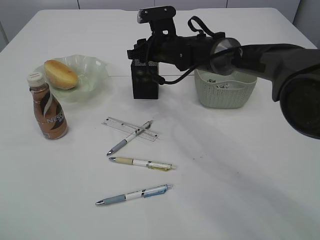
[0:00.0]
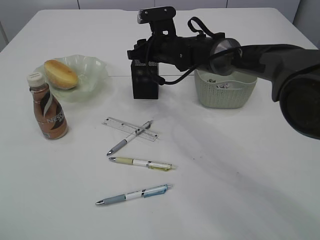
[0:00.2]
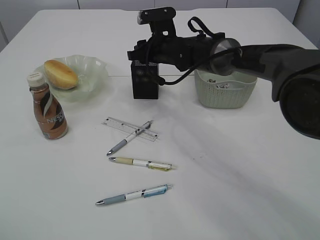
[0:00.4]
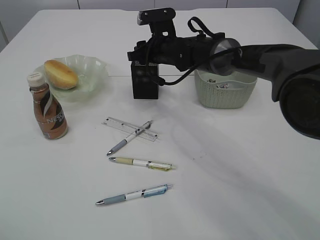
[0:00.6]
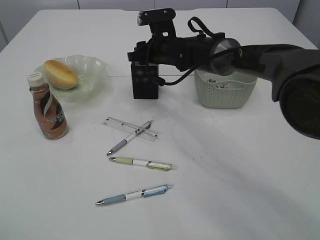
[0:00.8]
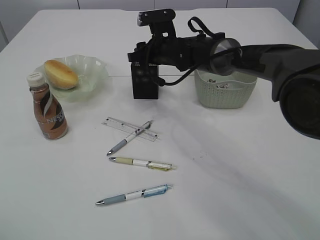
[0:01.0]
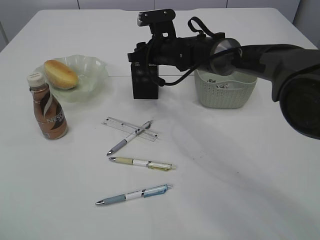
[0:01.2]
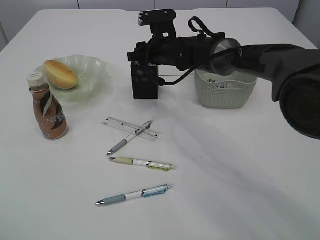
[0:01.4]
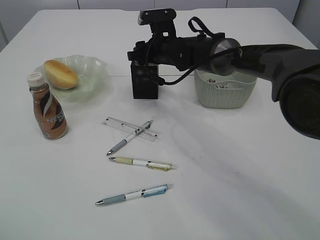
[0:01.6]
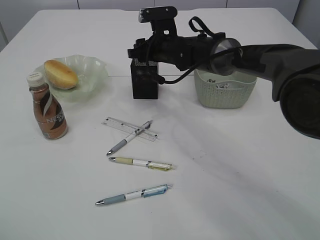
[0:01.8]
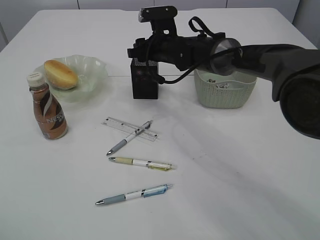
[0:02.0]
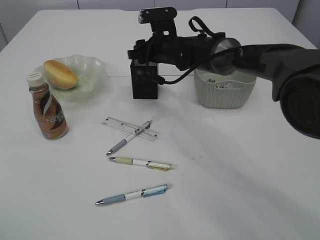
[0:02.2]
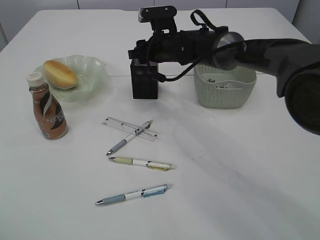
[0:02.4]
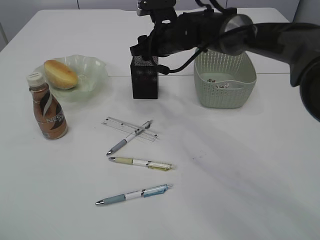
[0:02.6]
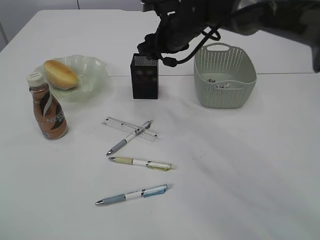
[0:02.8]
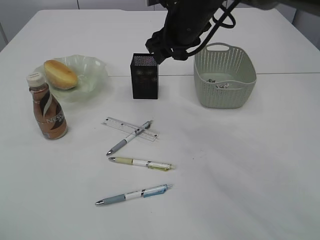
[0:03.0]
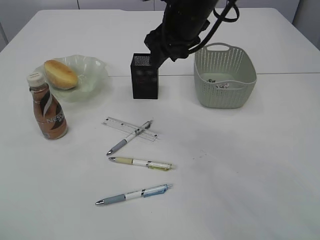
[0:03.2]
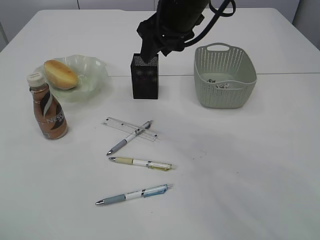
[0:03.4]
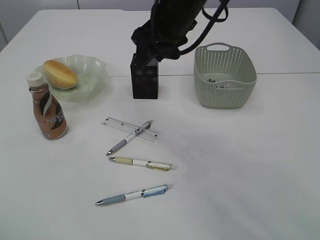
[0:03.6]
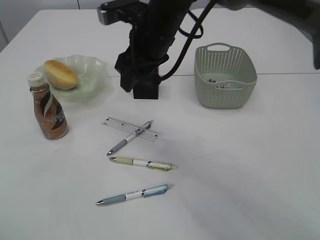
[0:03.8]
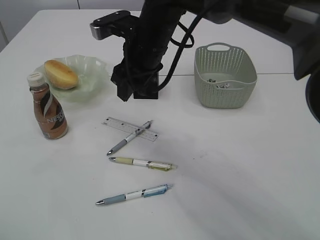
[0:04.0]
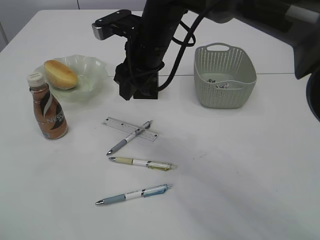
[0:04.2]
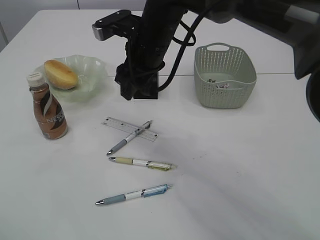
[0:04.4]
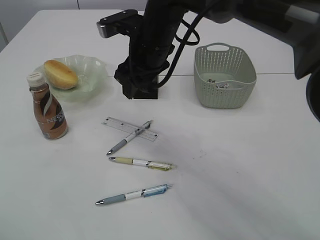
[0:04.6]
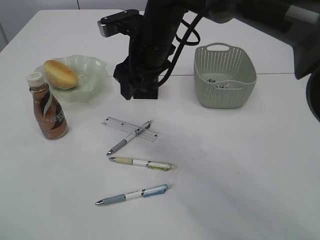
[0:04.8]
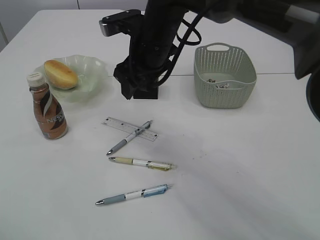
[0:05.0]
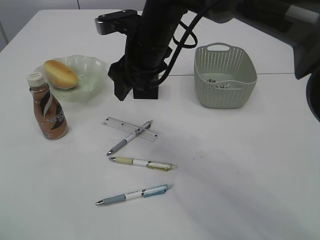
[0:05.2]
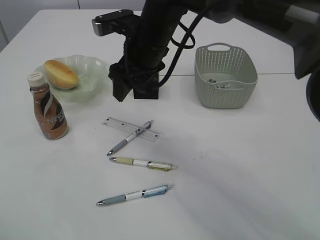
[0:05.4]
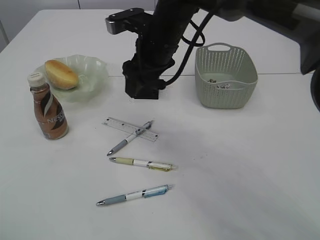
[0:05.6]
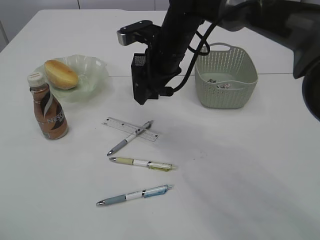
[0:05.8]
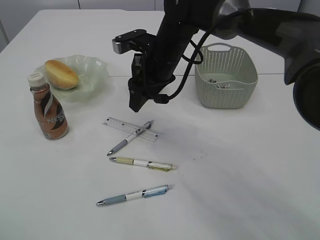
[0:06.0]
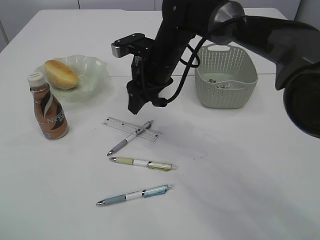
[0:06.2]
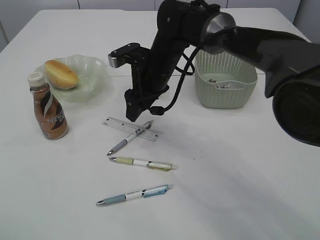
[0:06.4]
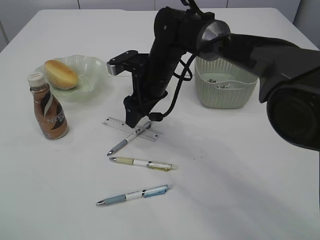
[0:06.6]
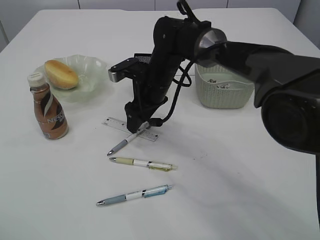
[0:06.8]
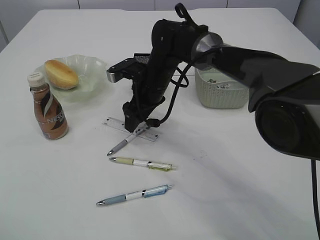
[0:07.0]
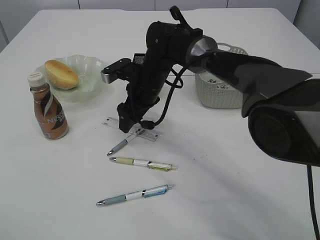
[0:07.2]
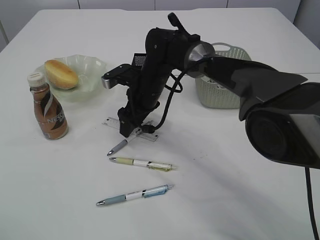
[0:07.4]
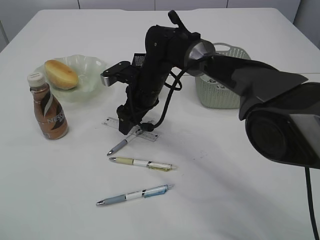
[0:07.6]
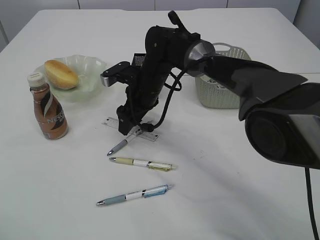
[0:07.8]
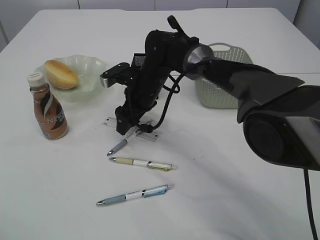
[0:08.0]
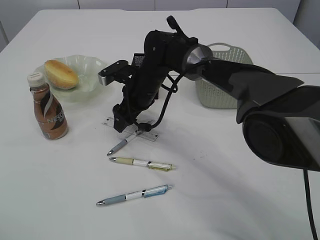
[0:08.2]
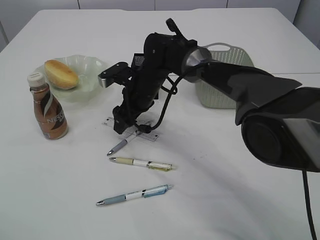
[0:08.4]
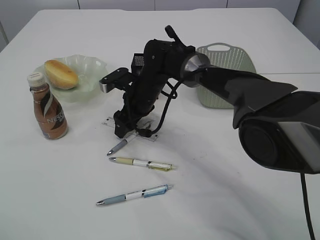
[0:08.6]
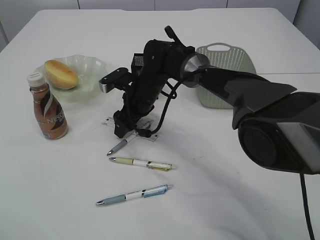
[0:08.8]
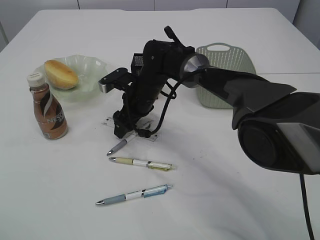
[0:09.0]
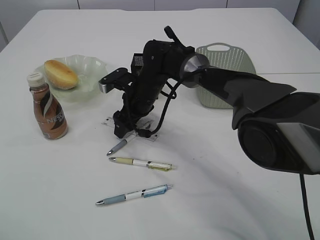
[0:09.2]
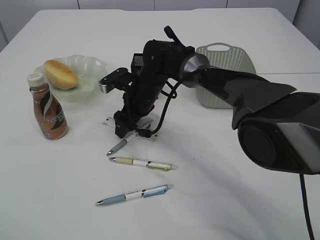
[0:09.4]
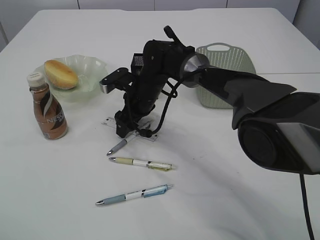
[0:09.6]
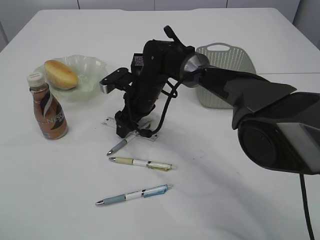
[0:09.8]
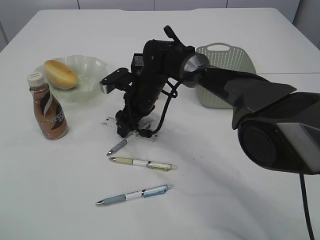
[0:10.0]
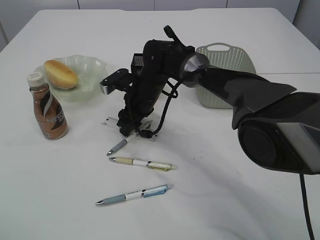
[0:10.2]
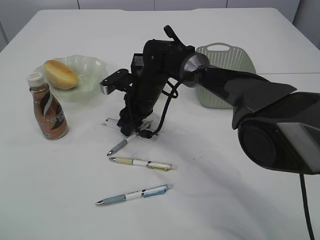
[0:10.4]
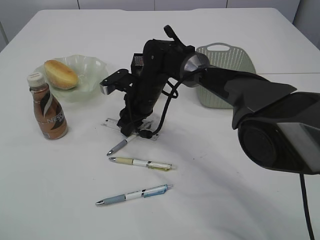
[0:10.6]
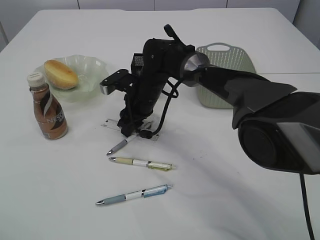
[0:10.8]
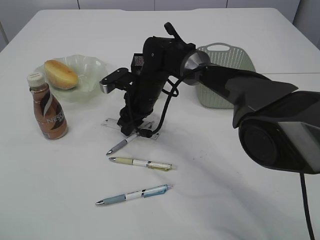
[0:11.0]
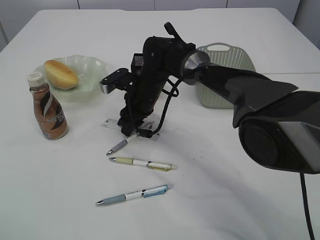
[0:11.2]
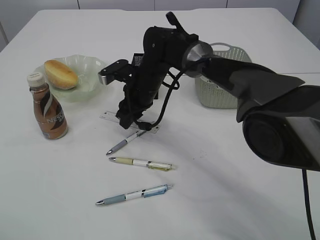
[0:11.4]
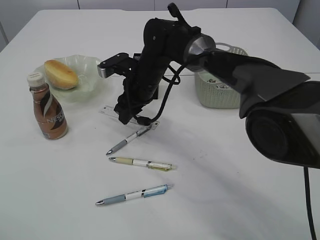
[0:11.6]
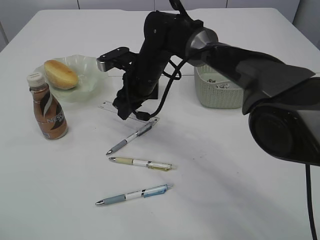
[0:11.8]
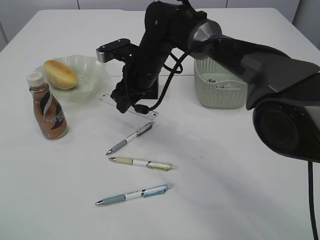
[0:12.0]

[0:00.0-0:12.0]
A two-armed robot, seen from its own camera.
Step, 0:02.0 to 0:11.8: pick up the ruler.
0:00.0 to 0:01.6: Both grippers stay about where they are.
0:01.6 to 0:03.0: The right gripper moves upward and backward, approximately 10 cm.
0:03.0 to 0:04.4: The right gripper travels to the left by roughly 5 cm.
0:04.4 to 0:06.0: The right gripper changes place by some 5 cm.
0:06.0 to 0:07.6: The right gripper heads downward, covering about 5 cm.
0:07.6 to 0:09.0: The grippers move only a little.
0:09.0 to 0:10.4: The right gripper closes its fingers.
0:10.4 to 0:12.0: The right gripper shifts about 5 cm upward.

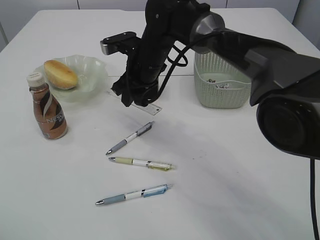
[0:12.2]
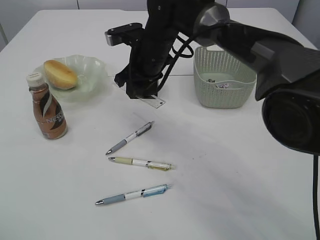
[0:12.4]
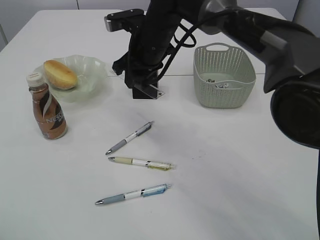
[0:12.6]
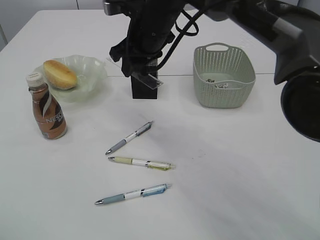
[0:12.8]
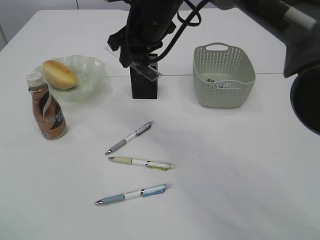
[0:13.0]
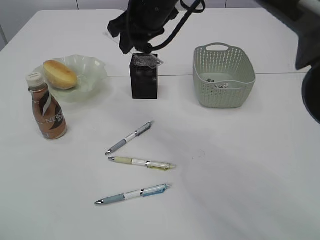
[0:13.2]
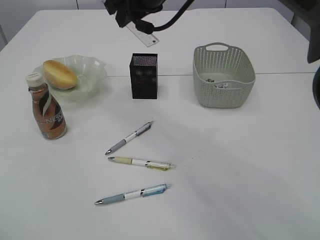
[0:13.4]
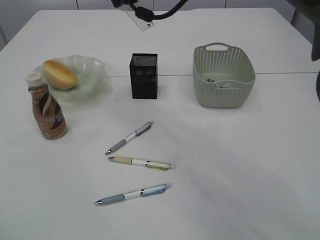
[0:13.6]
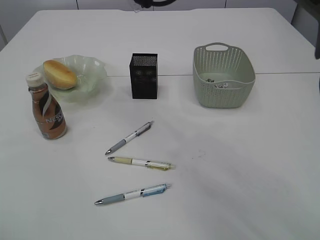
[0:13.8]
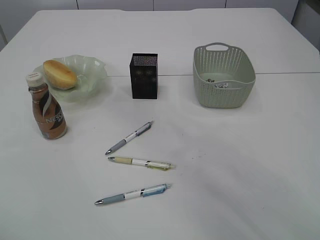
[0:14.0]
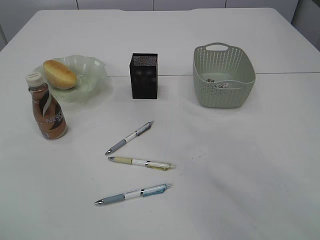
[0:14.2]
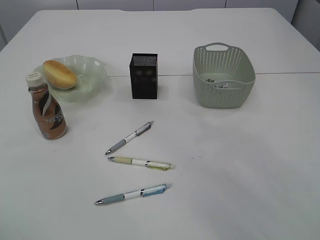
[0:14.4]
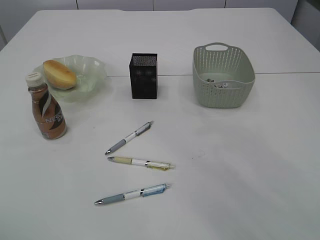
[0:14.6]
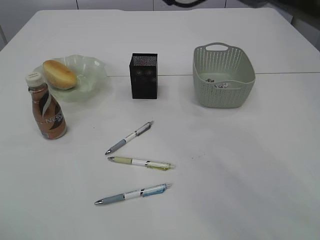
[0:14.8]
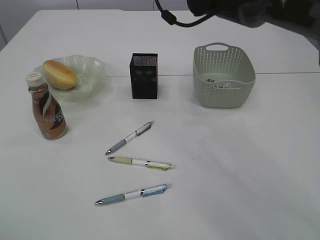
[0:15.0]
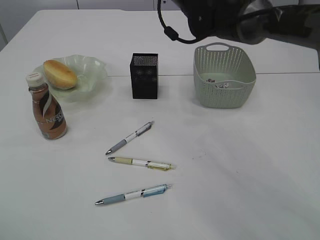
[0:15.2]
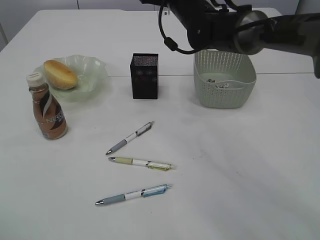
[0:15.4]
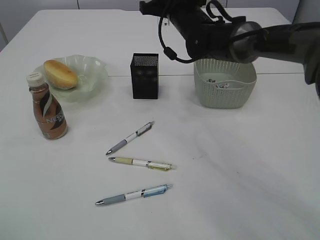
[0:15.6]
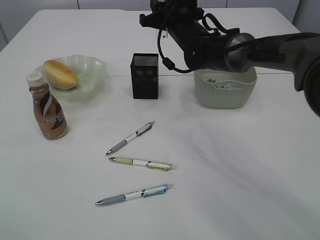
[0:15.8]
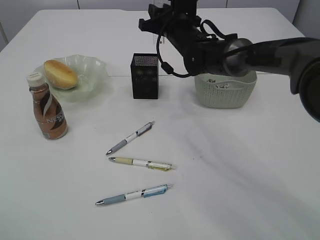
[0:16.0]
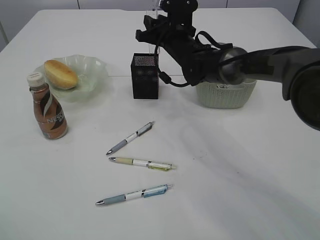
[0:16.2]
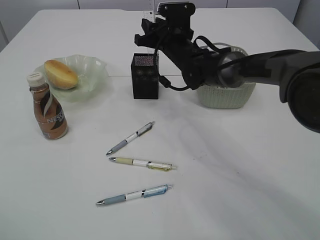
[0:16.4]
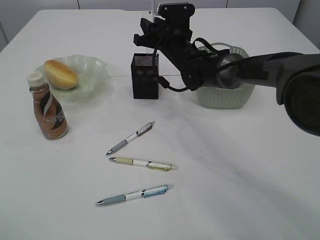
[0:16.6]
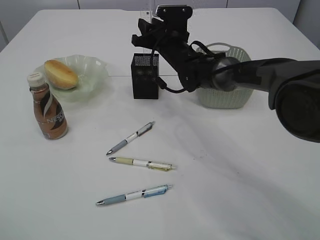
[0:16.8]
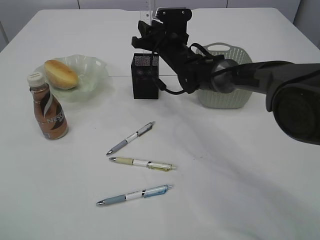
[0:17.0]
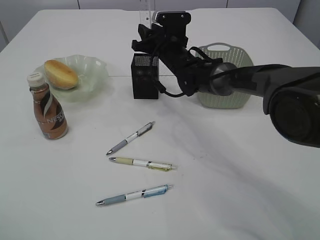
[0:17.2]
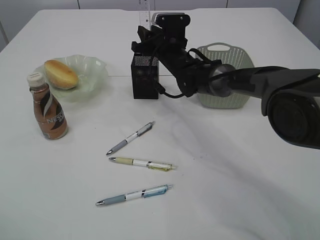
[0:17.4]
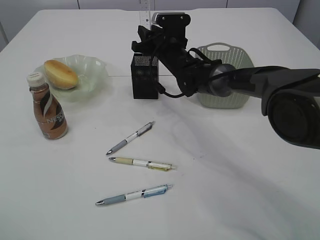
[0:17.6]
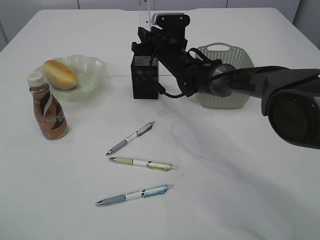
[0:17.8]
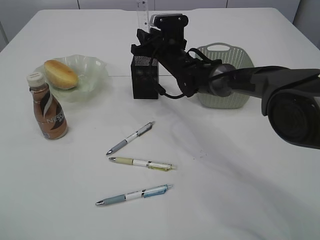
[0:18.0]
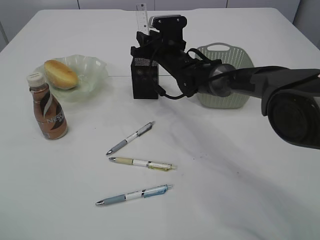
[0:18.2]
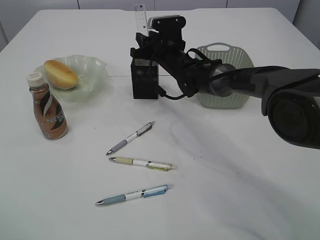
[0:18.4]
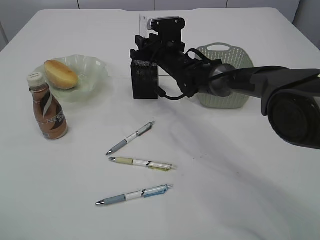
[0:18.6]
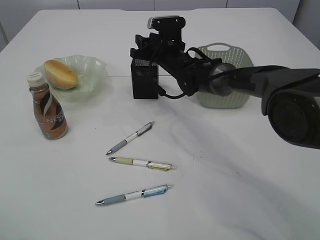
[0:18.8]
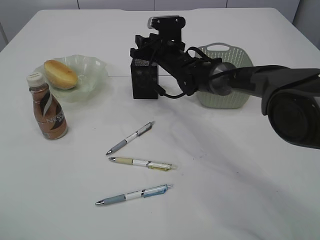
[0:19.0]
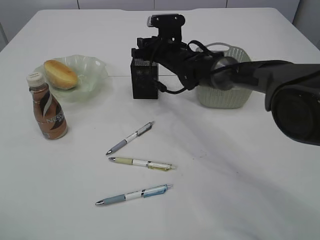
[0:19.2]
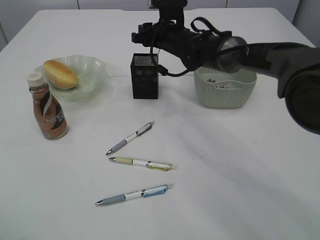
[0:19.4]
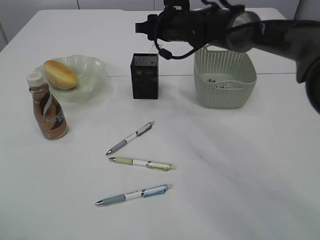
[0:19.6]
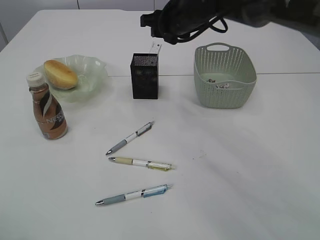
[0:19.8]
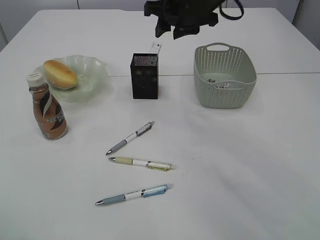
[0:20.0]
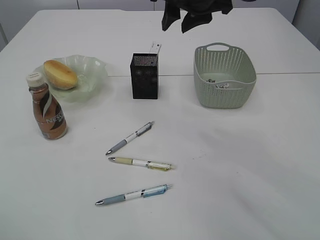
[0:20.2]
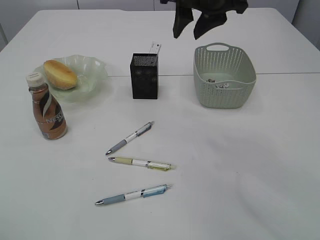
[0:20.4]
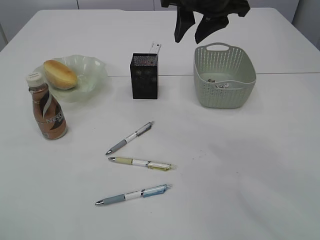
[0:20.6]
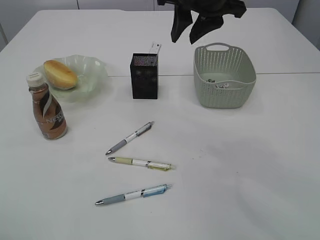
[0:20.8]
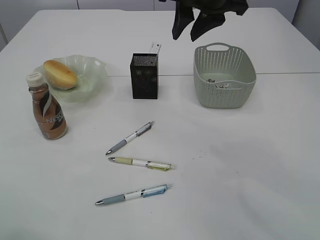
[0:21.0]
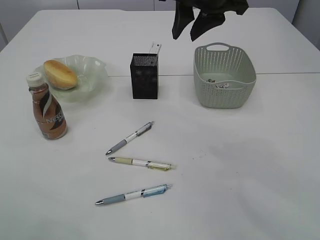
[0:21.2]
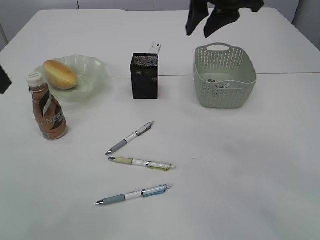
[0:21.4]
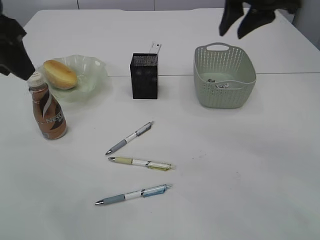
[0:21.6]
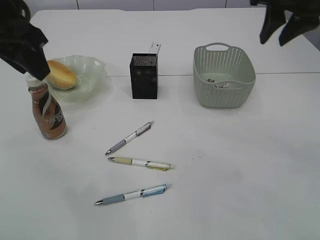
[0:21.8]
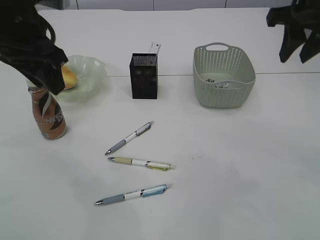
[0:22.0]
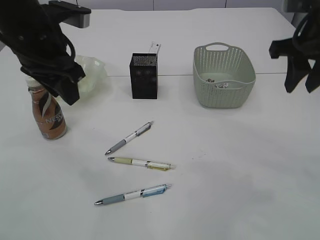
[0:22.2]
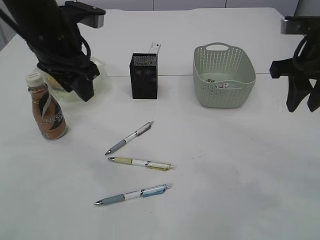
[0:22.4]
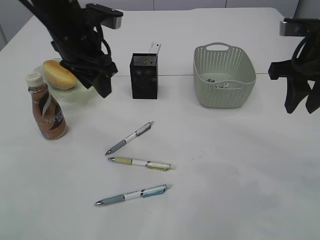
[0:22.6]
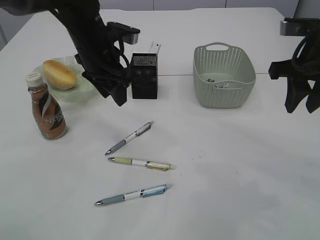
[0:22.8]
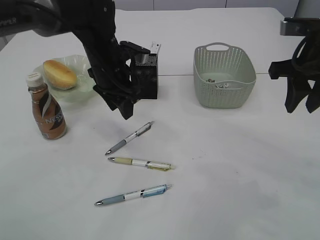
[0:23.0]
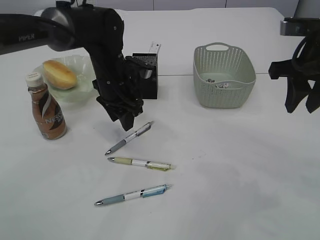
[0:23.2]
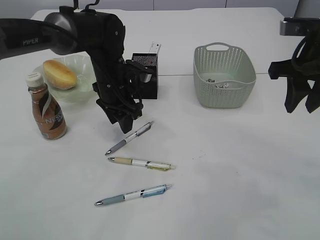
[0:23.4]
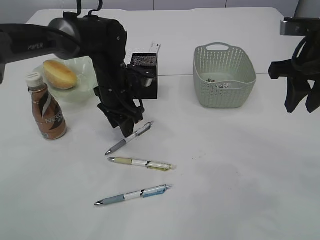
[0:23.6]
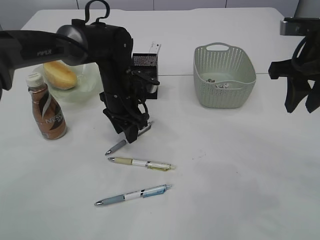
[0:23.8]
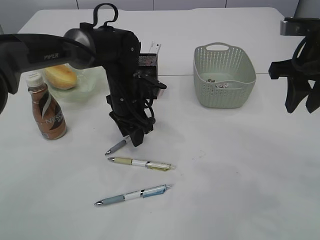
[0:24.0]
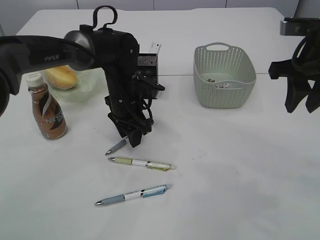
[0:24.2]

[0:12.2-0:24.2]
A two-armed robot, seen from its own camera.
Step, 0:12.2 to 0:19.8: Place the ruler into the pen holder.
0:12.2 to 0:13.8: The right gripper shifts some 15 cm upward.
0:13.8 to 0:15.2: The right gripper heads downward, forward and to the right, covering roughly 10 cm.
0:15.2 to 0:16.6: The right gripper travels downward by approximately 10 cm.
0:16.6 to 0:18.2: The grippers make only small movements.
0:18.2 to 0:19.8: The right gripper is displaced upward by some 10 cm.
0:19.8 to 0:21.2: The right gripper is displaced backward and upward by roughly 15 cm.
0:21.2 to 0:22.6: The left gripper is displaced forward, to the right and downward by about 20 cm; the right gripper is displaced to the right, downward and backward by approximately 20 cm.
0:22.6 to 0:24.2: The left gripper is displaced downward and to the right by about 15 cm.
